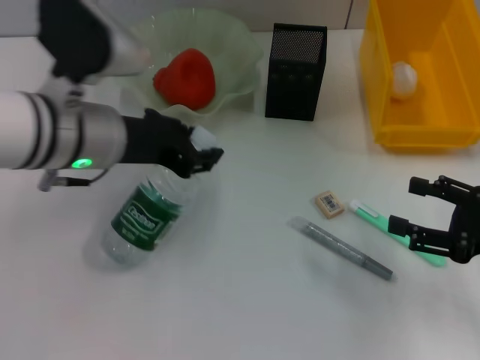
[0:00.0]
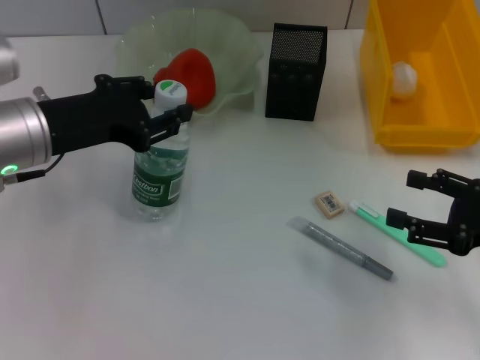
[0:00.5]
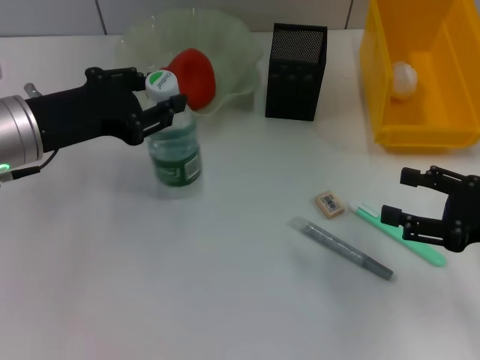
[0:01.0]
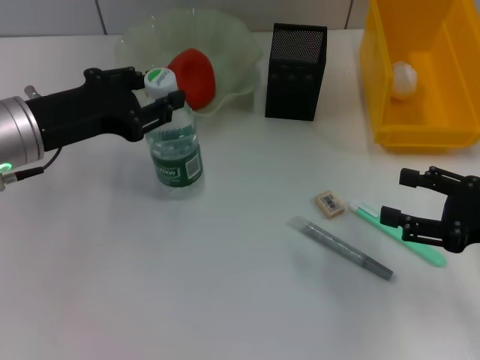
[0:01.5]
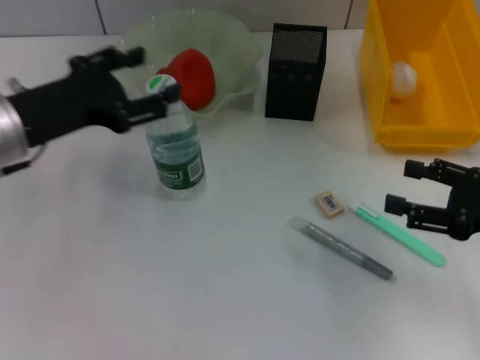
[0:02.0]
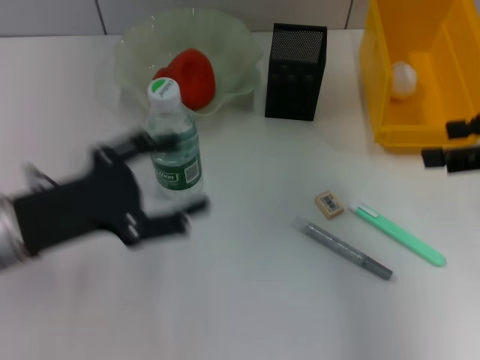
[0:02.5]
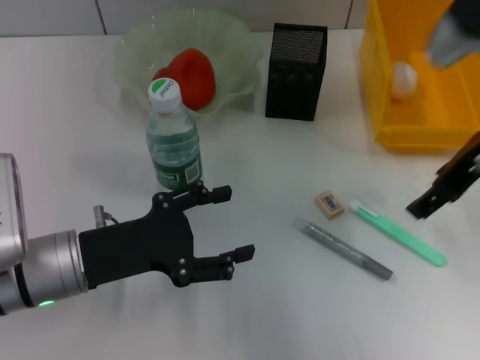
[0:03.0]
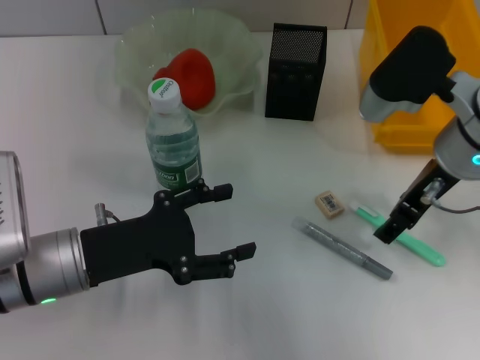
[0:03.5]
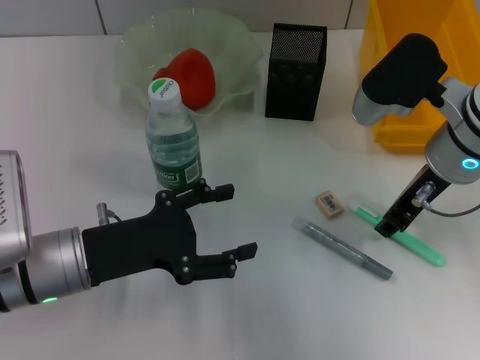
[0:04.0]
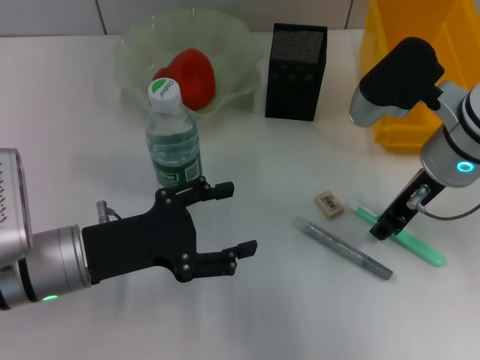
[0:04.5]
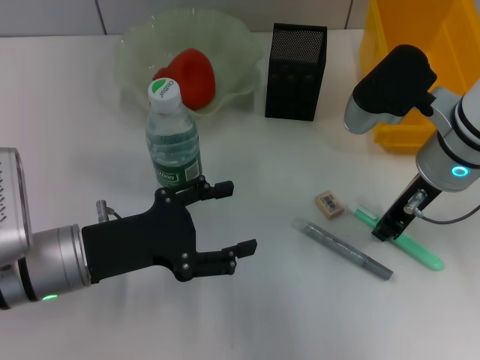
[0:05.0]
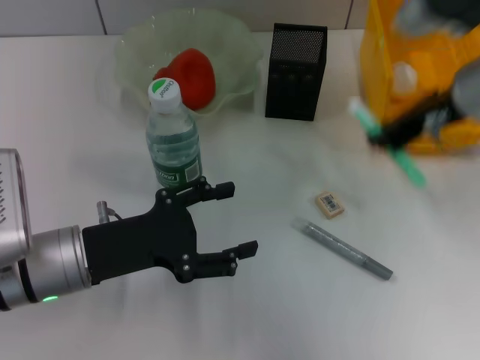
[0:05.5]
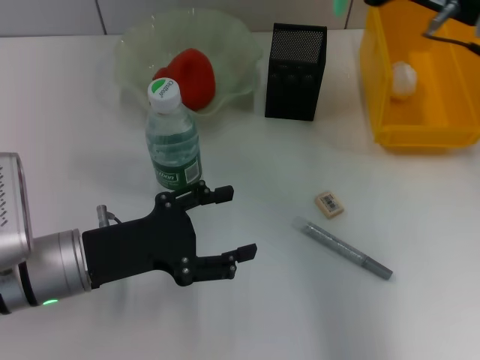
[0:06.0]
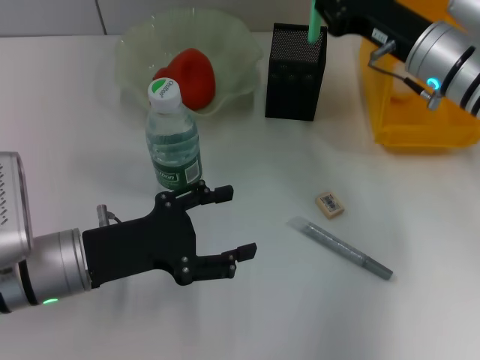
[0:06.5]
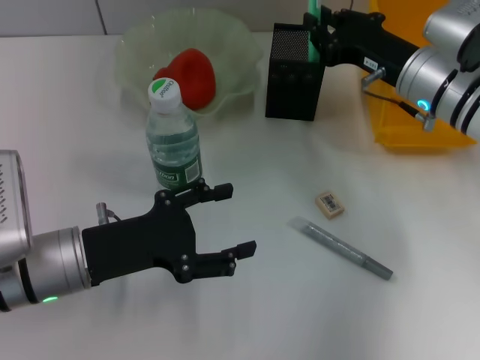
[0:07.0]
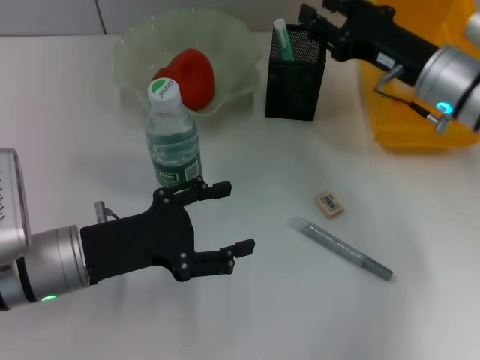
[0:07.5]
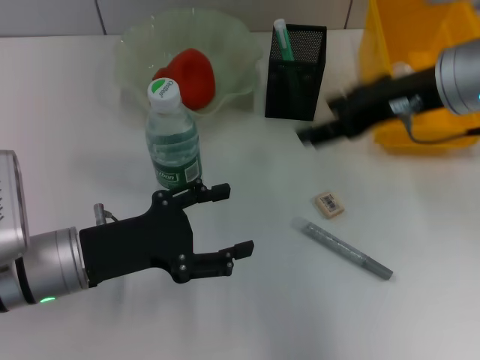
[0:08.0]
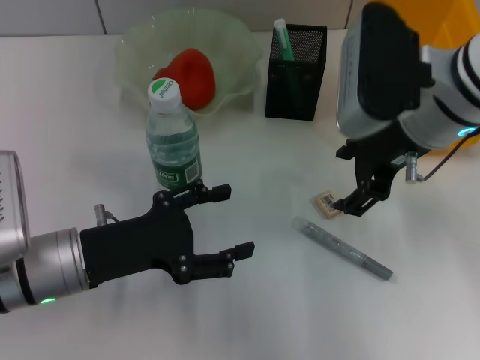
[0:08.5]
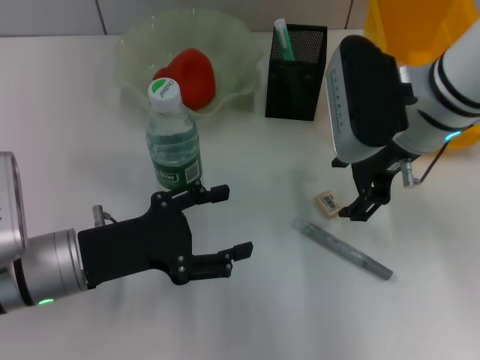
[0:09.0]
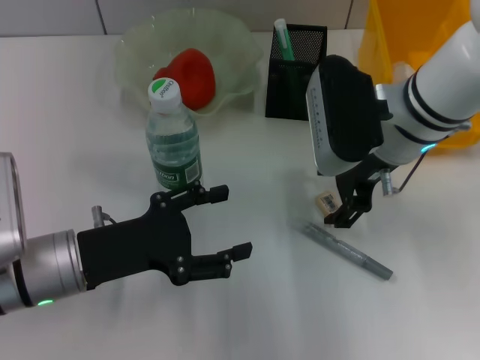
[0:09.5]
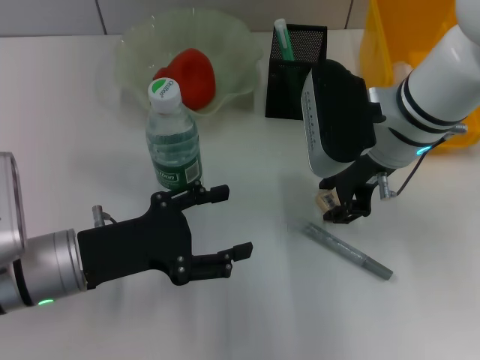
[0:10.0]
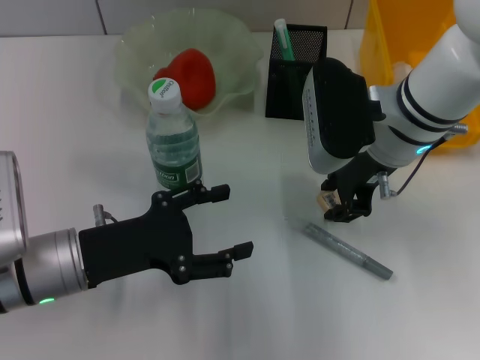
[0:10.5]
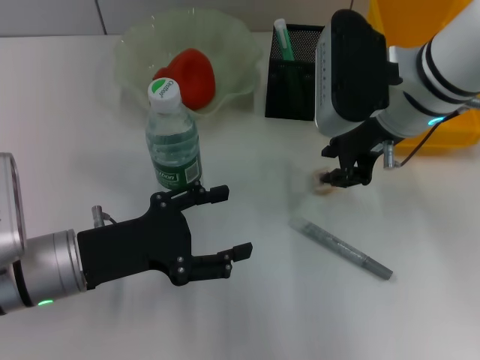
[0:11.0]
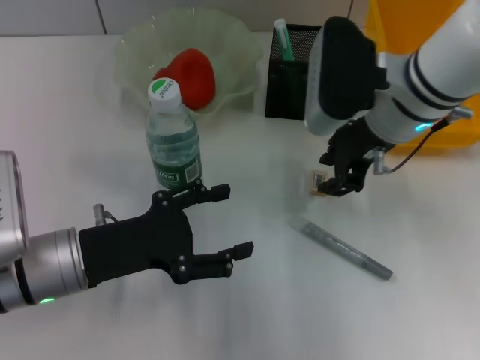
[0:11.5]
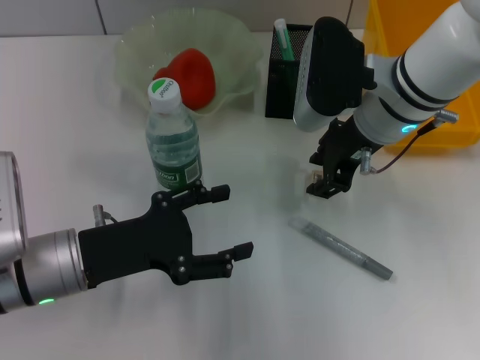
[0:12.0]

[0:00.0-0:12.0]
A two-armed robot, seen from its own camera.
Step, 0:00.0 to 0:01.5: Place the water bottle on the table with the left hand.
Step, 0:02.0 to 0:04.5: Grab the blue utility knife with the right hand.
Step, 0:05.0 to 0:07.0: Place the blue utility knife into the pen holder with the right hand.
0:00.0 to 0:02.0: The left gripper is displaced to the left by some 10 cm, and opens its fingers.
0:02.0 to 0:04.0: The right gripper shifts some 15 cm to the left and forward; the left gripper heads downward and backward, covering approximately 10 cm.
0:04.0 to 0:06.0: The right gripper travels upward by approximately 5 cm, and closes.
0:06.0 to 0:08.0: The right gripper moves about 10 cm downward and comes back, and opens its fingers.
0:08.0 to 0:10.0: The right gripper is displaced downward and to the left by some 10 cm.
0:10.0 to 0:12.0: The grippers make only small movements.

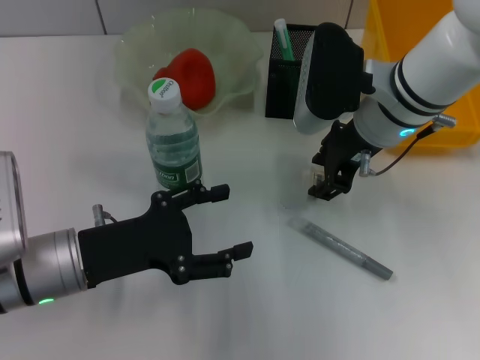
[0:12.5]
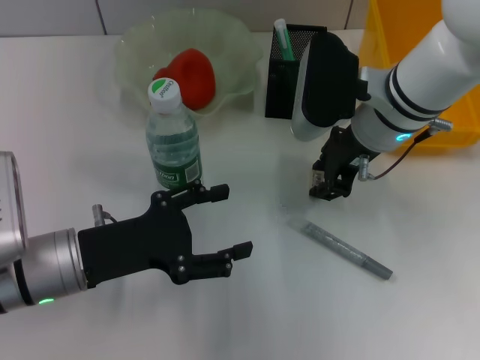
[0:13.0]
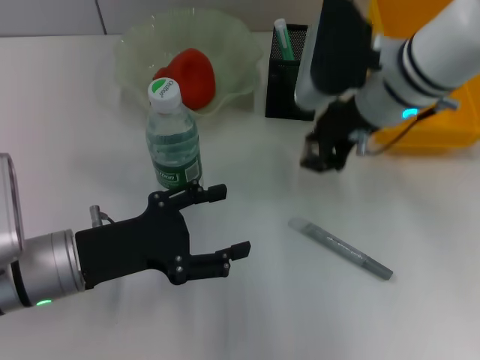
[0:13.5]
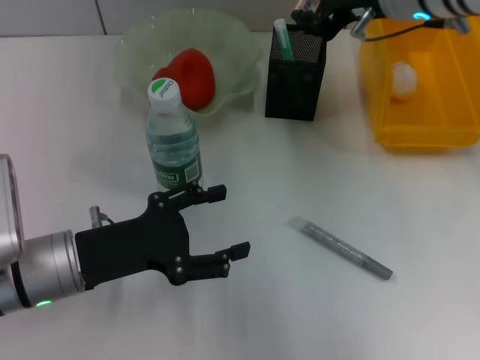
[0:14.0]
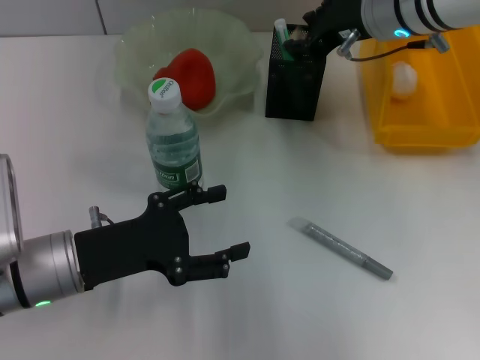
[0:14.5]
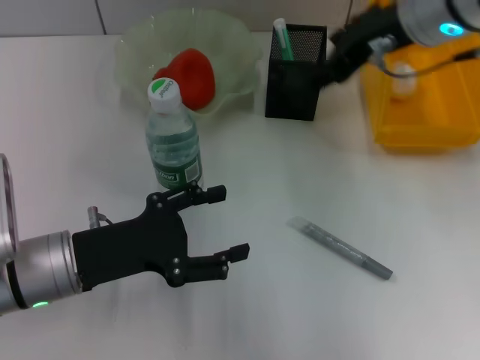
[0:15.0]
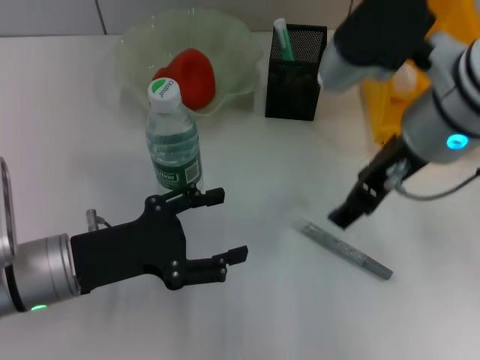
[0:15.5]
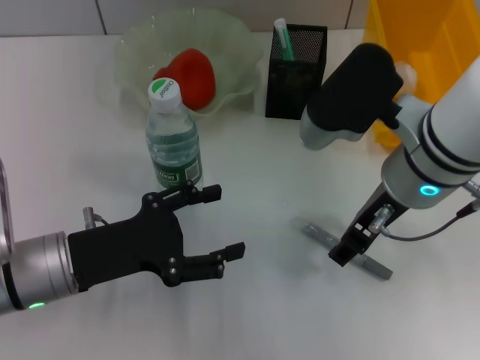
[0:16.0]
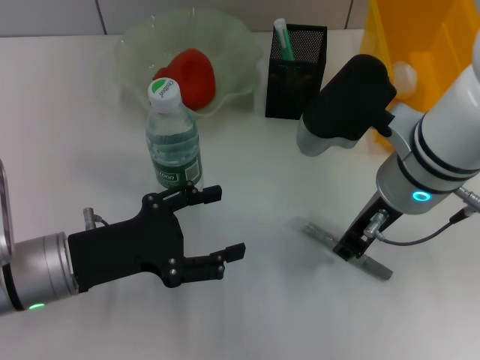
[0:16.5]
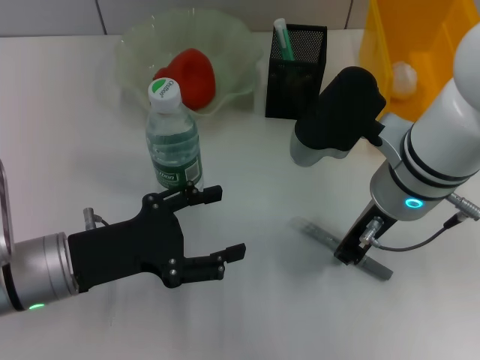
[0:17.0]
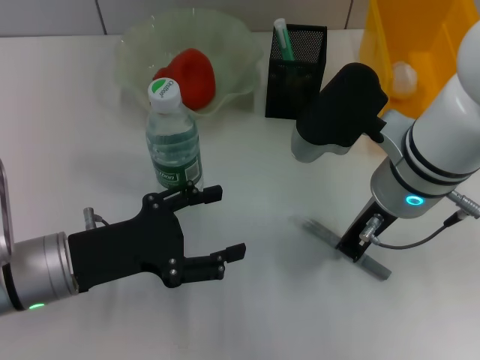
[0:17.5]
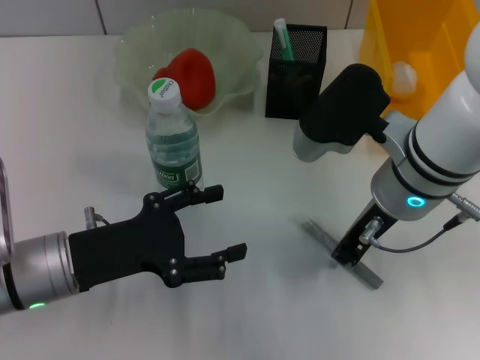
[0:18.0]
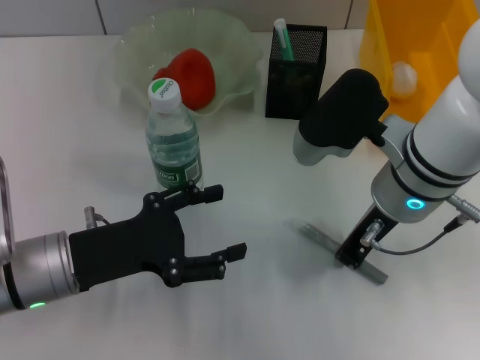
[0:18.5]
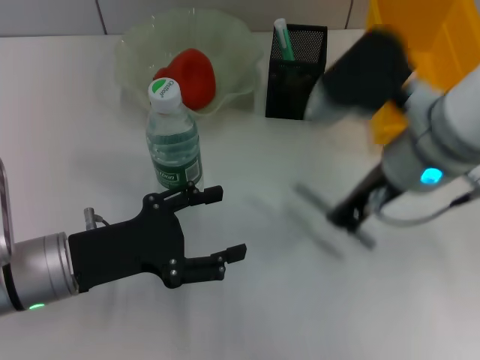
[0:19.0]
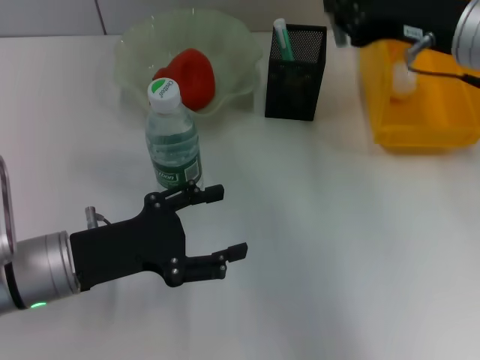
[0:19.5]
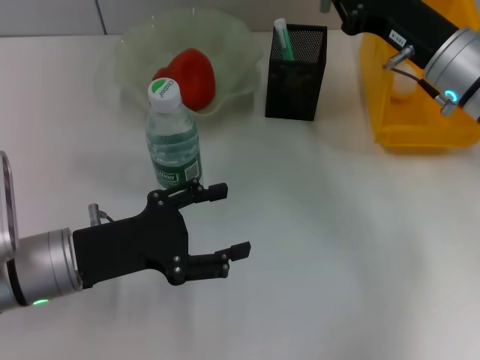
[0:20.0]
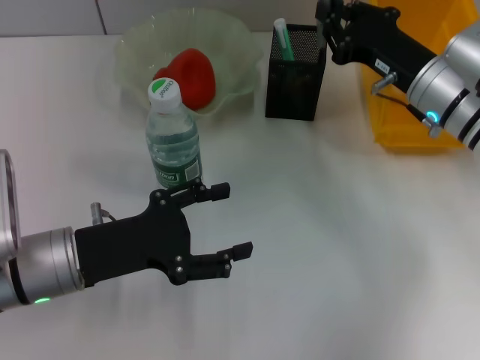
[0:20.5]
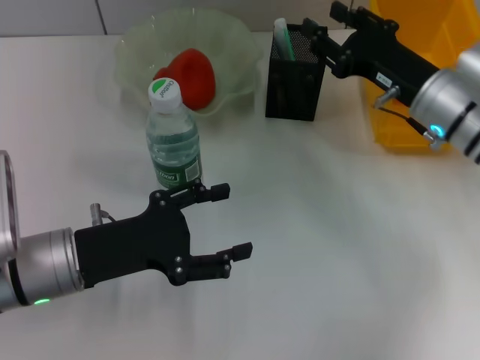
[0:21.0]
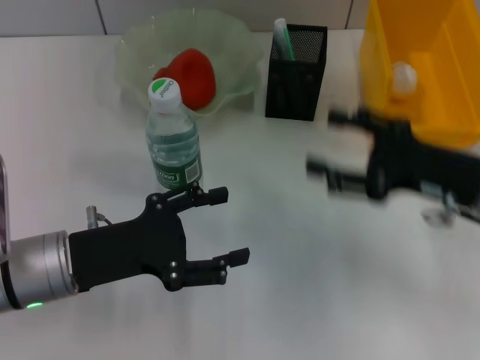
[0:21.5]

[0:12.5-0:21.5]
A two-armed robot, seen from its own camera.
Step, 0:13.5 to 0:14.5: Put the eraser into the pen holder with the right hand.
Step, 0:15.0 to 0:18.5: Grab the gray glue with the right hand.
Step, 0:19.0 to 0:20.5: Place the gray glue into the pen holder with the right hand.
0:12.5 to 0:14.5: The right gripper travels upward by approximately 5 cm.
0:14.5 to 0:17.0: The right gripper heads backward and downward, covering some 15 cm, and opens, then closes once more.
0:17.0 to 0:19.5: The right gripper travels to the right and upward by approximately 10 cm.
0:19.5 to 0:21.5: The right gripper heads downward, backward and to the right, covering some 15 cm, and opens its fingers.

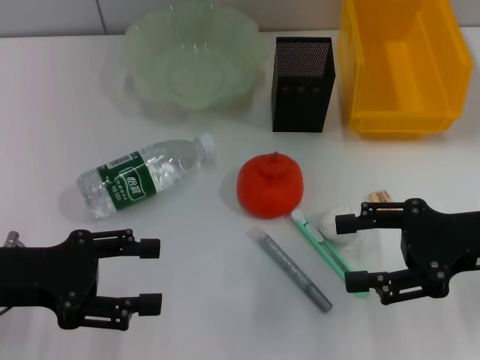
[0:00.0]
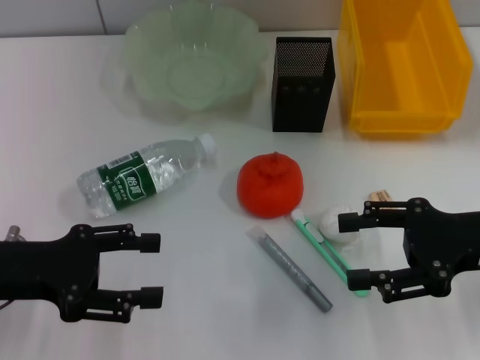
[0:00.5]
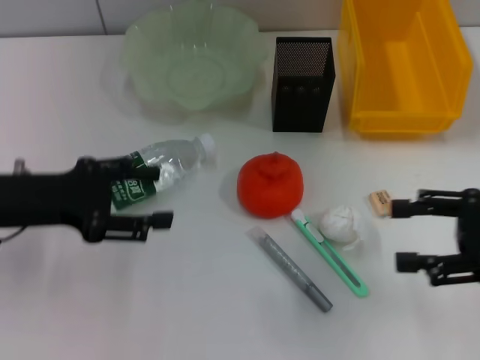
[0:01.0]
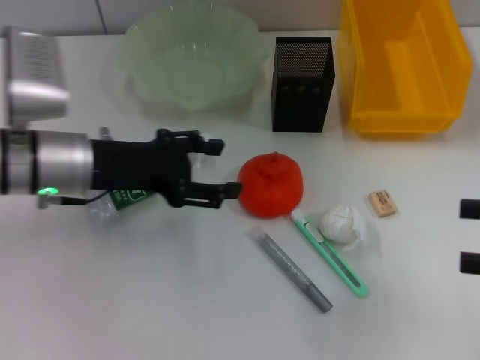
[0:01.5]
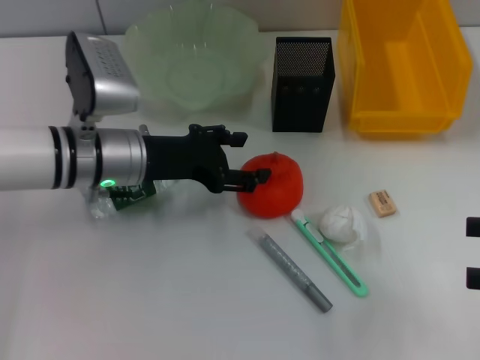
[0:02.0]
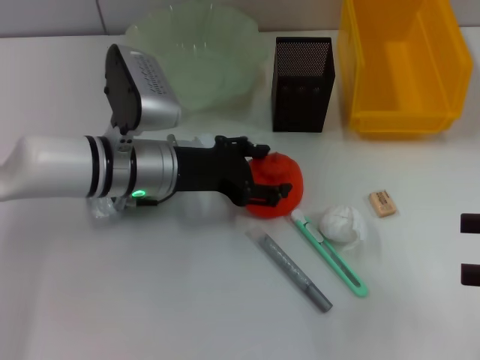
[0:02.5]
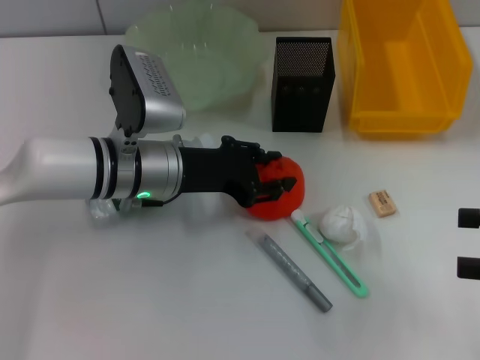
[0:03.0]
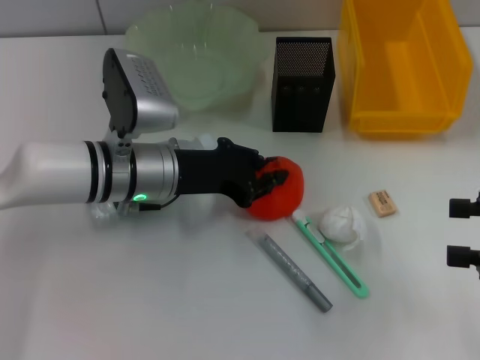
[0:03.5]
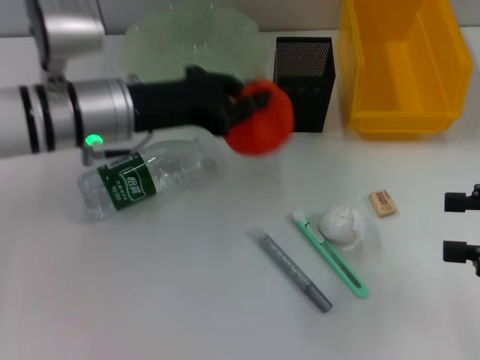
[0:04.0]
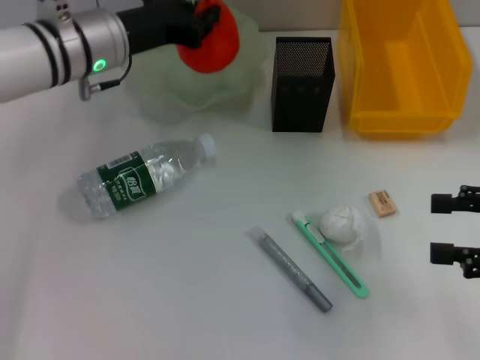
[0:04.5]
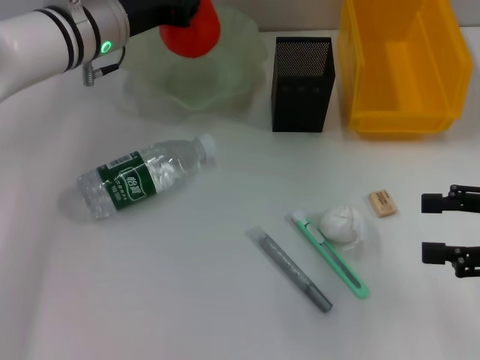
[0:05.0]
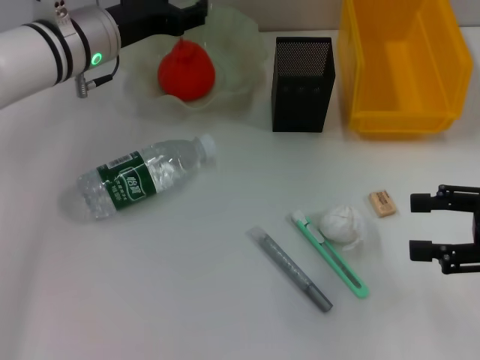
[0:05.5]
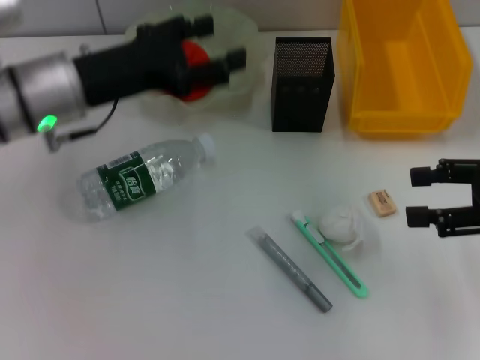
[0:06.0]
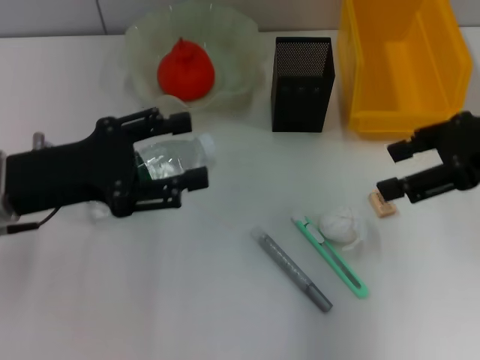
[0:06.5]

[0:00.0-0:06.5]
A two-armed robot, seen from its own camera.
Step, 0:00.0 to 0:03.0: Grab the orange with the left hand.
Step, 0:03.5 to 0:05.0: Place the orange into the fruit bowl with the left hand.
0:00.0 to 0:02.0: The left gripper travels to the right and forward by roughly 15 cm. Meanwhile the right gripper moves to the right and backward, some 10 cm.
0:02.0 to 0:04.5: The left gripper goes roughly 10 cm forward and upward, and closes up.
0:04.5 to 0:06.5: The right gripper heads upward, forward and to the left, covering approximately 15 cm, while the left gripper goes roughly 15 cm backward and to the left, and opens its fingers.
